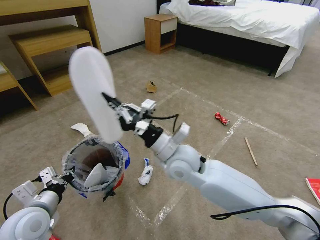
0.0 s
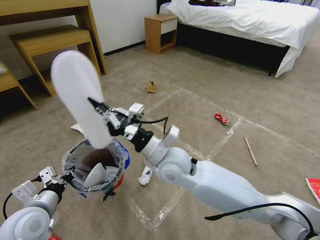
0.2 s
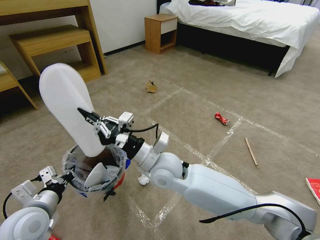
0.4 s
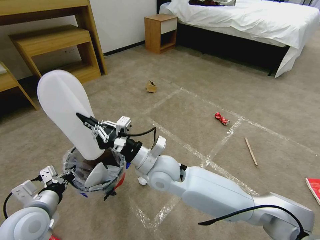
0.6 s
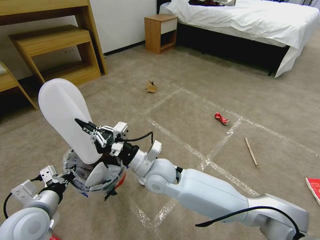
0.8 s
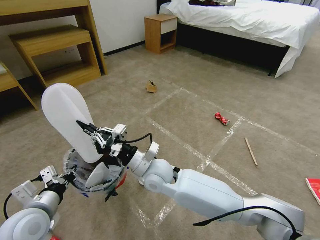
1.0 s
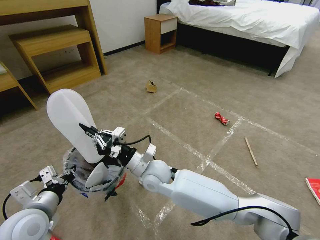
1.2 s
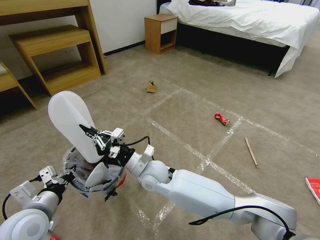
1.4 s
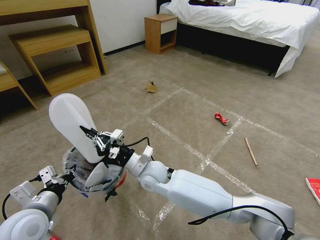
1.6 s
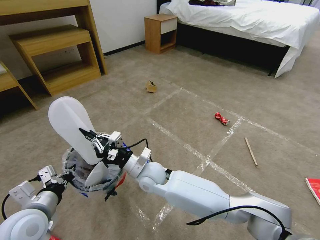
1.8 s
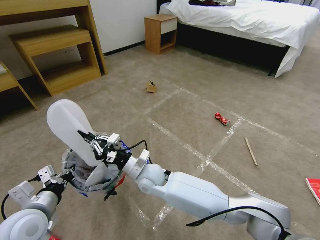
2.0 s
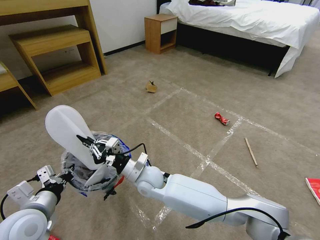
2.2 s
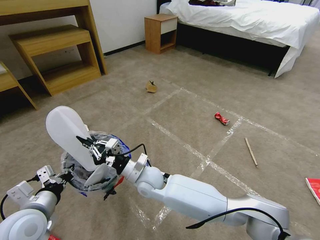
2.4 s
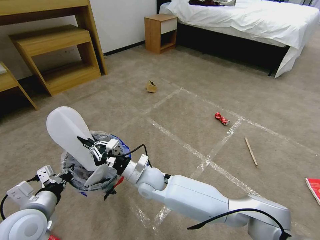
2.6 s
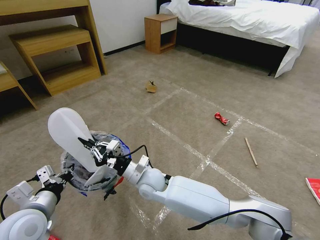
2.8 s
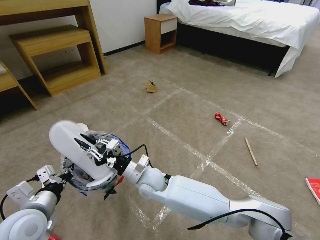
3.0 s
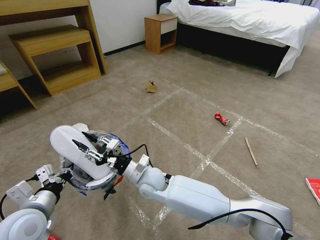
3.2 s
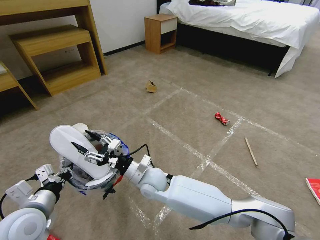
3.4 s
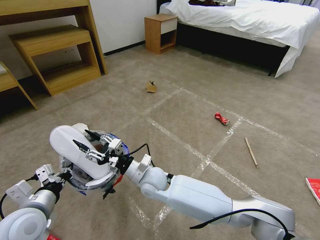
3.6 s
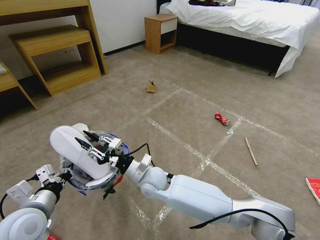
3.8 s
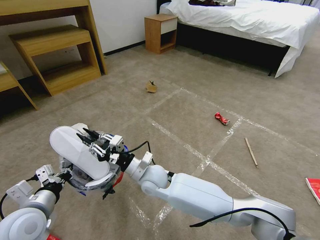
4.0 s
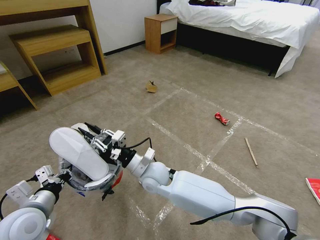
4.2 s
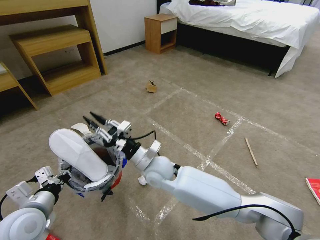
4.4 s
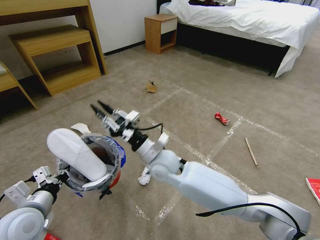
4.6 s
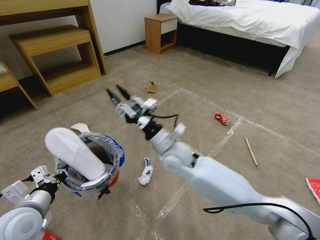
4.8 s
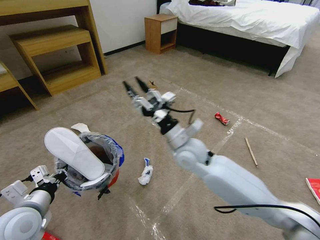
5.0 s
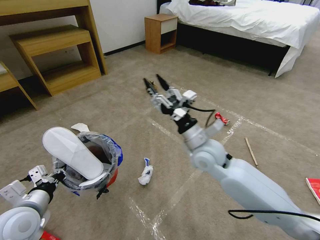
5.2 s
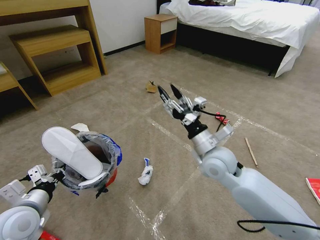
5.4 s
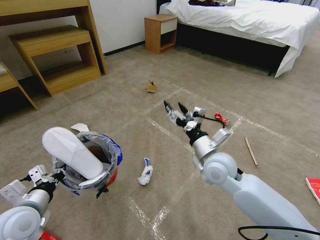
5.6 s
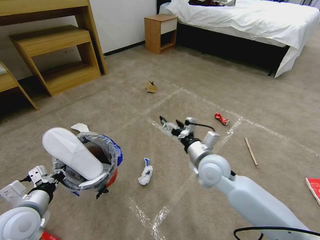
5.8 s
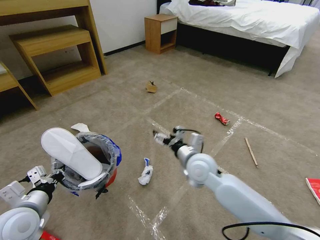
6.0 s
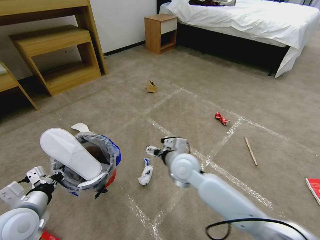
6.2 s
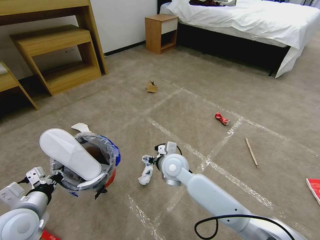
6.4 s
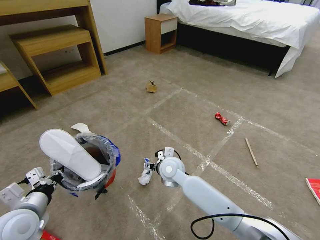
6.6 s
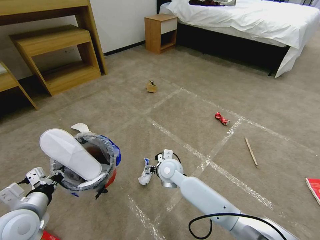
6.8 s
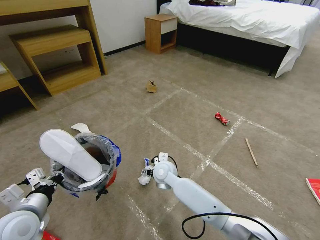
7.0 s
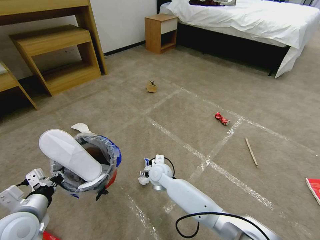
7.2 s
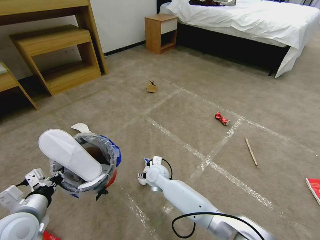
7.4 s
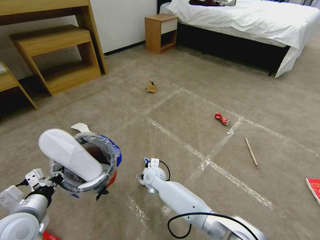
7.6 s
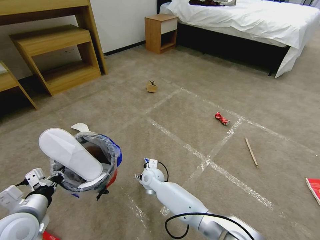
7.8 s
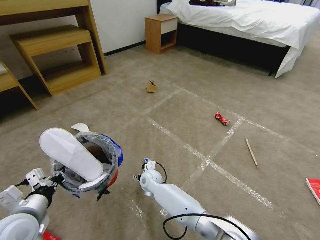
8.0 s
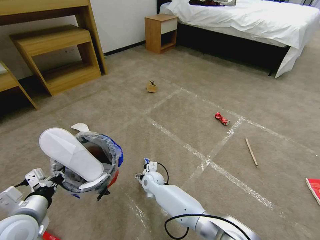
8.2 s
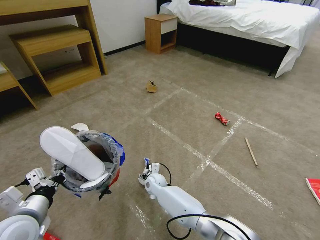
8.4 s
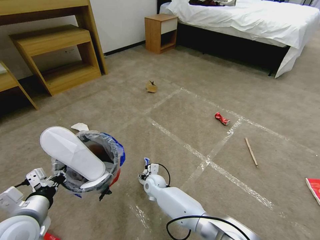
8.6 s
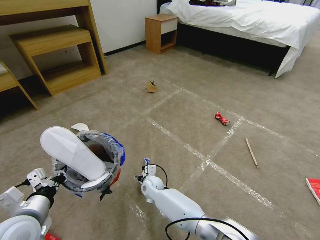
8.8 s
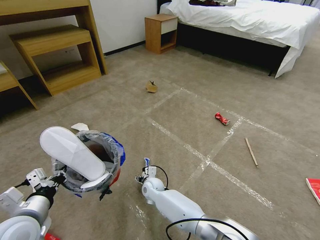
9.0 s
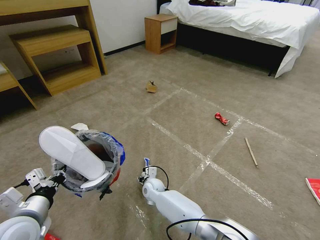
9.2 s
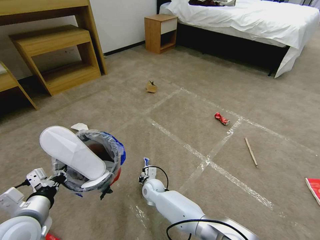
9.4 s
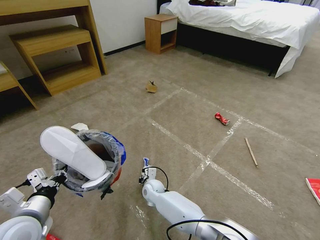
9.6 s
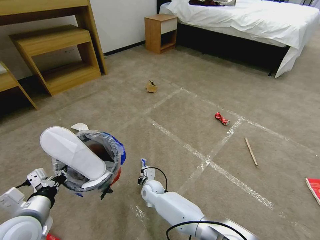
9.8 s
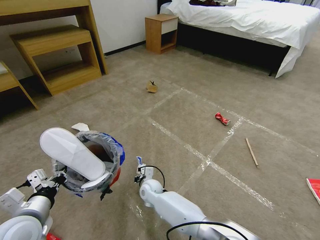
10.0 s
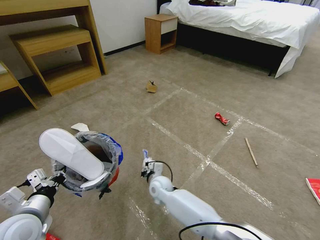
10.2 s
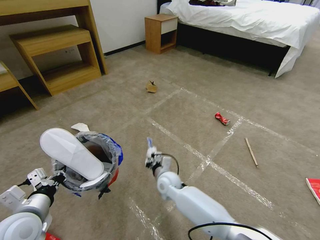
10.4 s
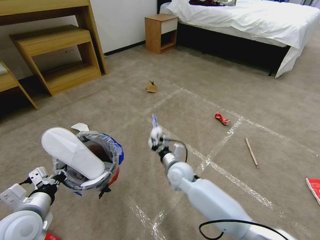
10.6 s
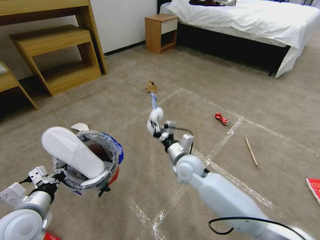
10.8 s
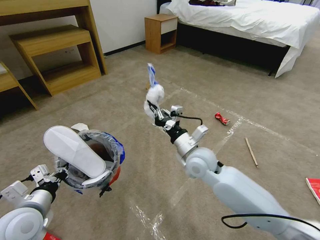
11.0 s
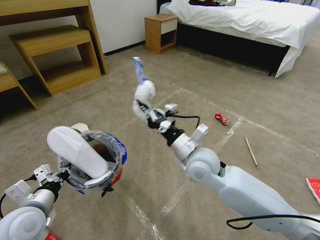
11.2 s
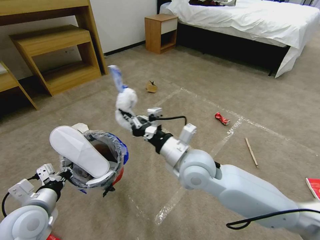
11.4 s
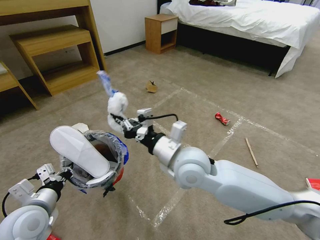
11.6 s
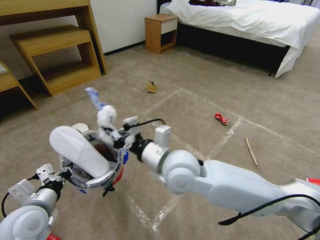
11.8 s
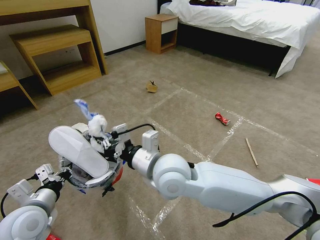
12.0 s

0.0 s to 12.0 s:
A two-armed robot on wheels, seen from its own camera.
Task of the whole recording: Pick up the trash bin and place the garbage on the floor into it.
0.0 to 1.6 s: The right gripper travels downward and to the left by approximately 15 cm.
1.6 to 3.0 s: The grippers move only a little.
3.0 to 4.4 s: The right gripper shifts by approximately 5 cm, and opens and closes again.
4.4 to 6.0 s: The right gripper goes approximately 15 cm to the right, and opens.
6.0 to 7.6 s: The right gripper goes approximately 25 cm downward and to the left.
7.6 to 9.0 s: The right gripper moves downward, some 5 cm.
9.0 to 10.4 s: The right gripper travels upward and to the right by roughly 10 cm, and closes up.
10.4 to 12.0 s: The right gripper shifts approximately 25 cm upward.

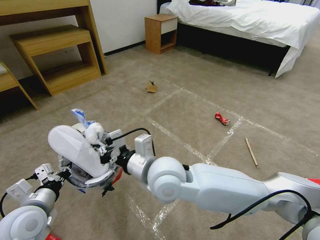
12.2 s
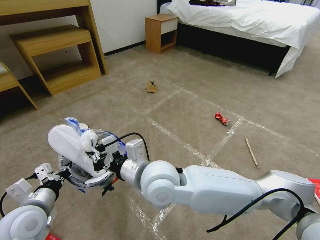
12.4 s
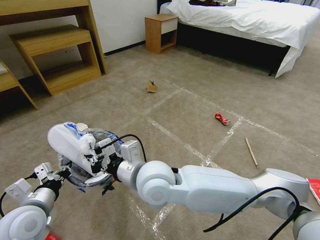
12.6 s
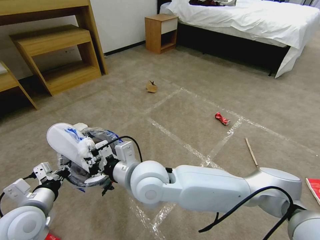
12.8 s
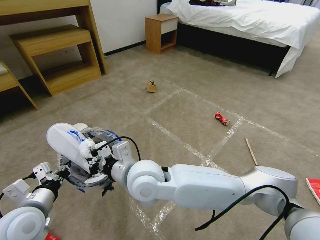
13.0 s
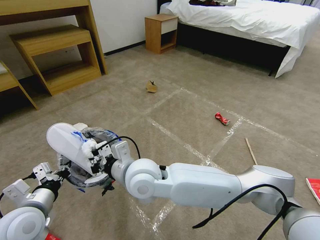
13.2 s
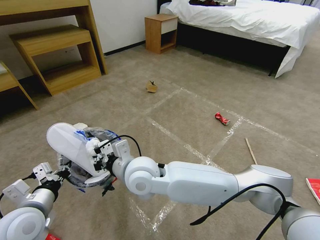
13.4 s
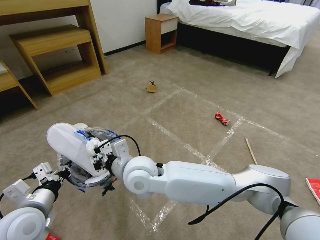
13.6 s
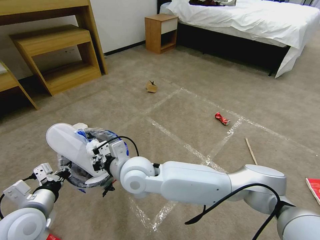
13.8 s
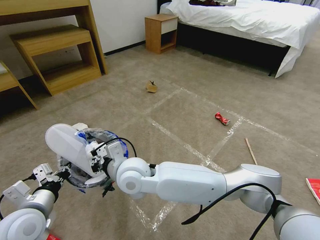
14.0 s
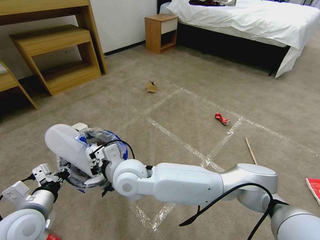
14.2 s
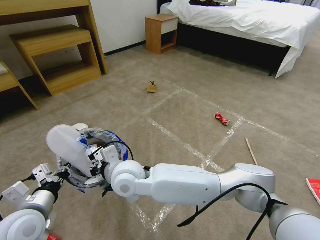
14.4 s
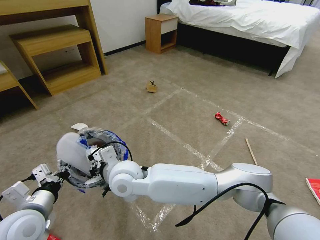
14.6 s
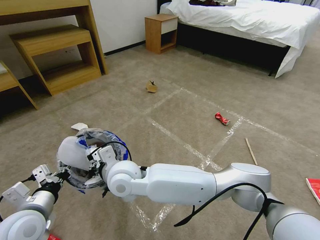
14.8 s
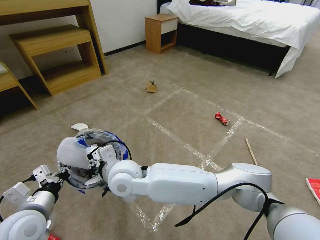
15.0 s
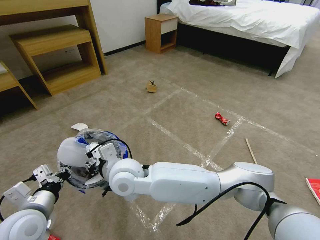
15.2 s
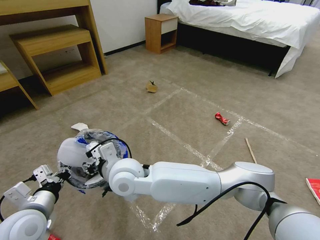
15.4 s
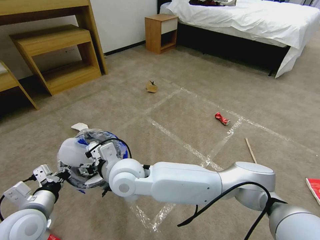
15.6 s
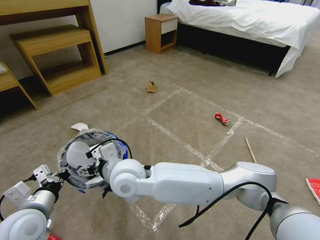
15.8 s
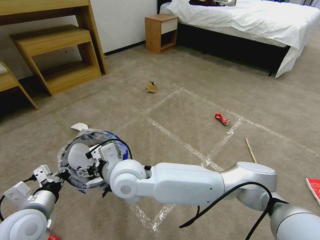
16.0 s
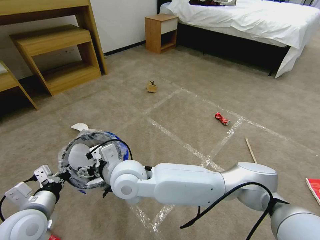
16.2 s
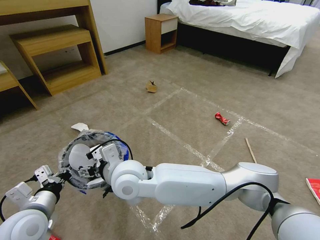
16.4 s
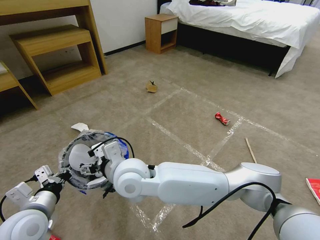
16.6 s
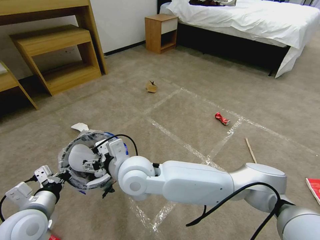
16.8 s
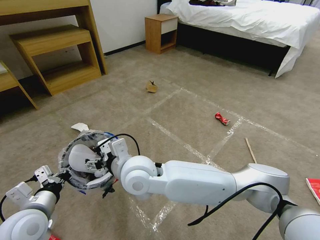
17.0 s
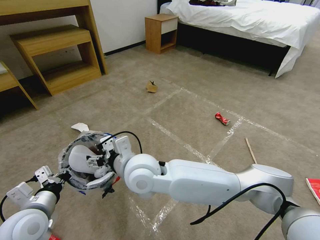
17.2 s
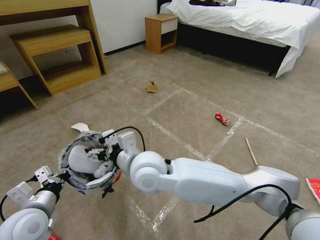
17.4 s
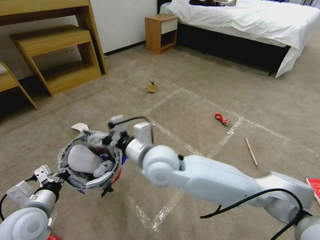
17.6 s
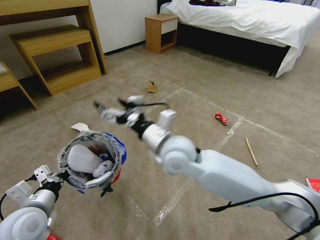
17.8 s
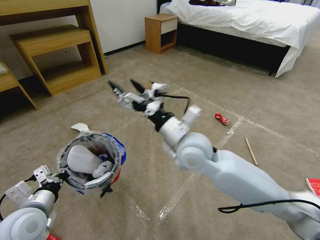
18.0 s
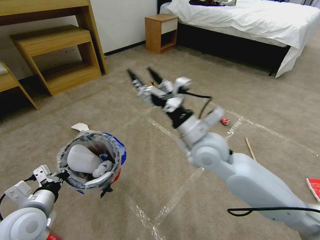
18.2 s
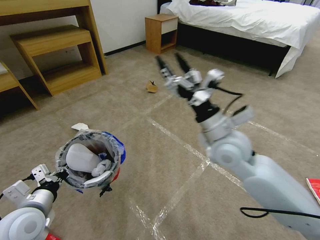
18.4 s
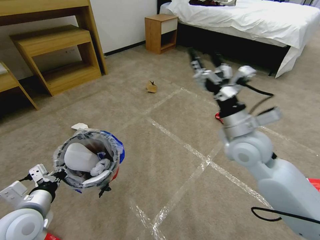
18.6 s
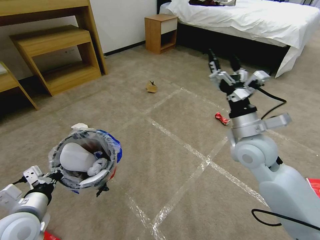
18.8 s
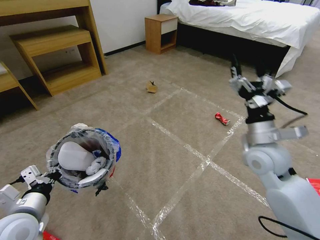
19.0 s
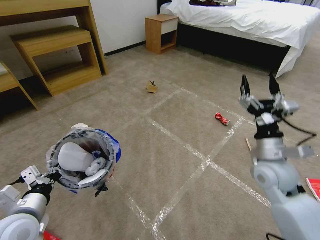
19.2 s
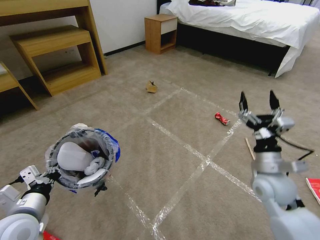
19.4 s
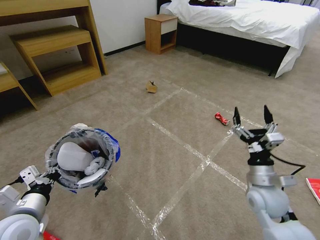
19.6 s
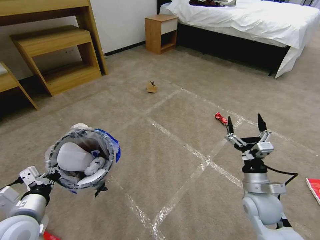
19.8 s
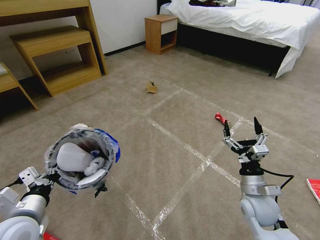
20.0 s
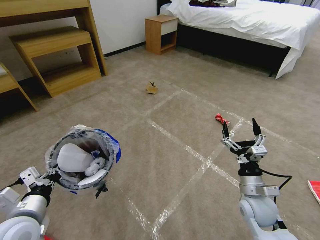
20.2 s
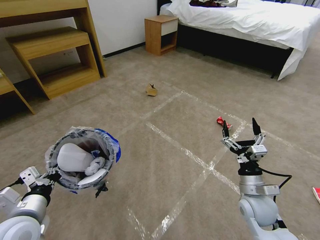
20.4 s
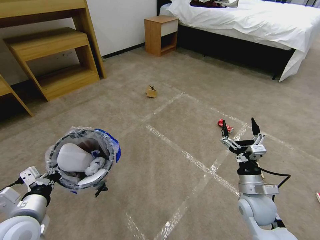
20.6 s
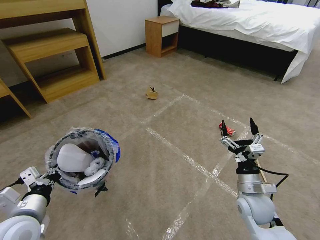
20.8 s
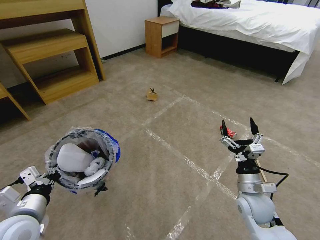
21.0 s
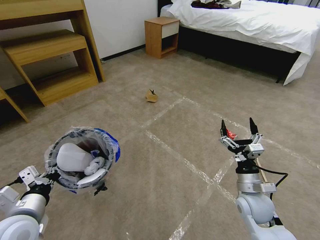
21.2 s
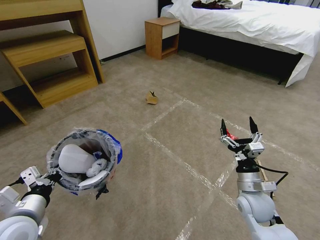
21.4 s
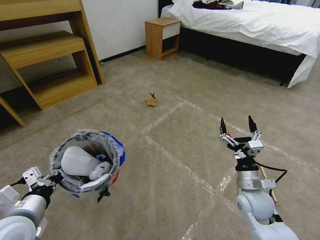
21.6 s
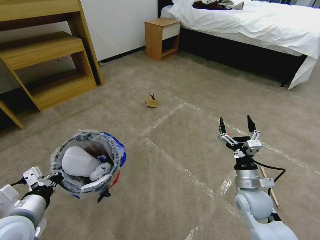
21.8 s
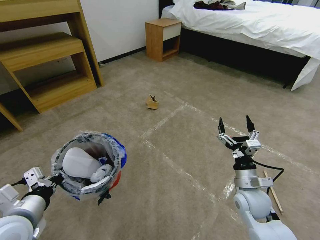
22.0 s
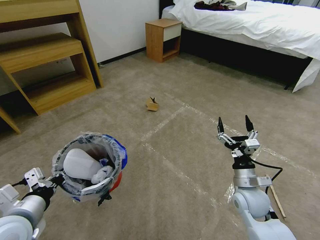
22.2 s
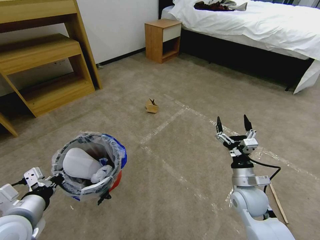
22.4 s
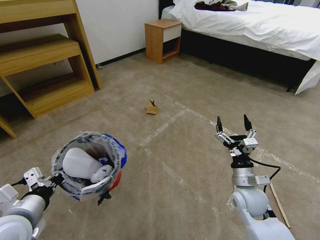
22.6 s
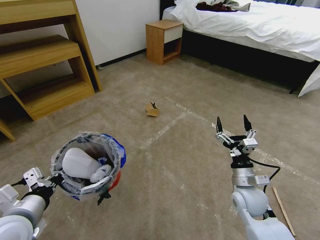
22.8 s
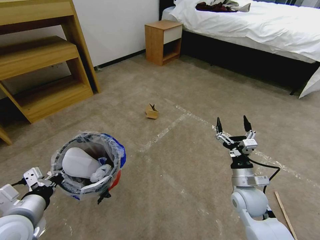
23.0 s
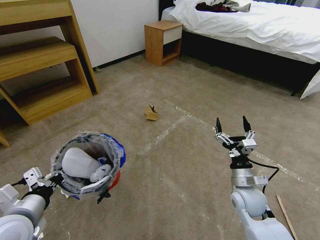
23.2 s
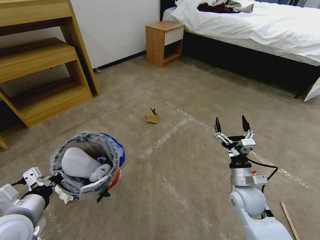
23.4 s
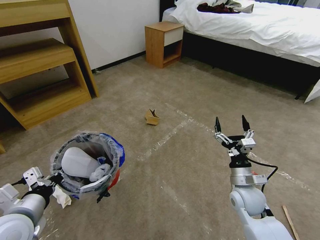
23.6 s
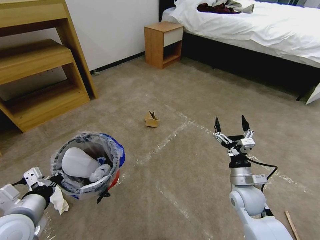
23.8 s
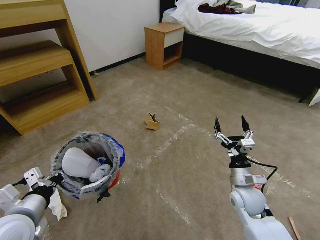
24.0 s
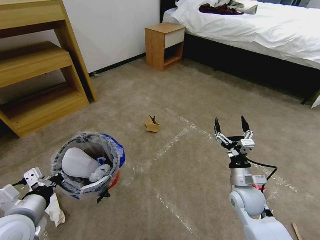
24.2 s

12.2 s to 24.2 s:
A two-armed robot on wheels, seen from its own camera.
Task of the whole recording: Pick up the trash bin and place the garbage on the floor into it.
12.2 to 13.8 s: The right gripper moves to the left, about 10 cm.
13.8 to 15.2 s: The right gripper opens.
15.2 to 16.6 s: The right gripper opens up.
16.6 to 18.2 s: The right gripper is displaced to the right by roughly 20 cm.
18.2 to 19.8 s: The right gripper moves to the right, downward and backward, roughly 25 cm.
